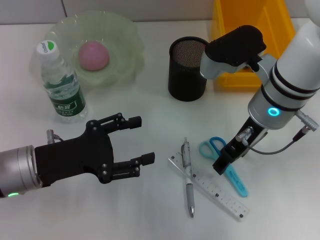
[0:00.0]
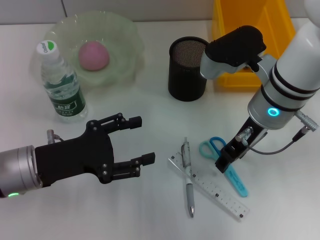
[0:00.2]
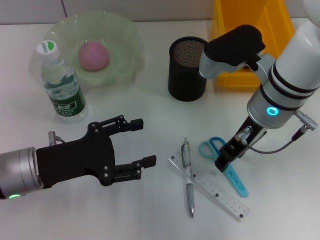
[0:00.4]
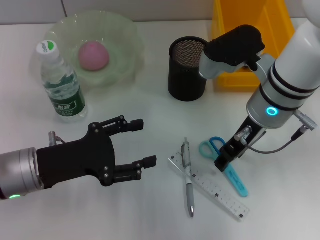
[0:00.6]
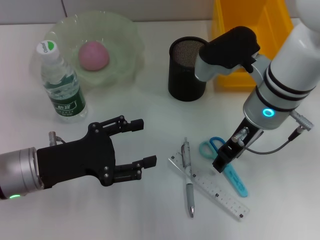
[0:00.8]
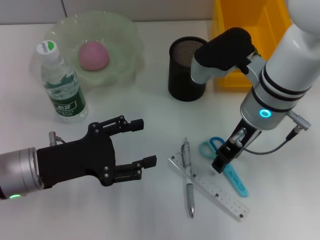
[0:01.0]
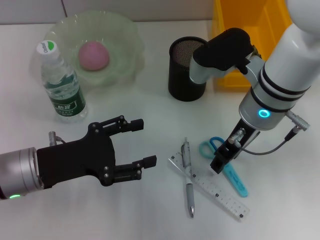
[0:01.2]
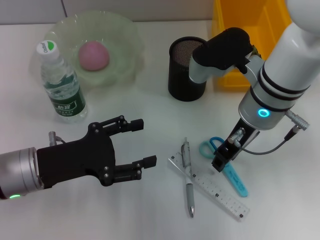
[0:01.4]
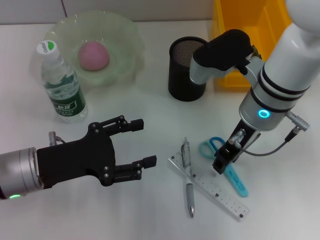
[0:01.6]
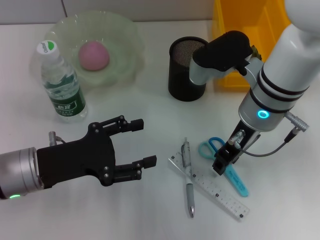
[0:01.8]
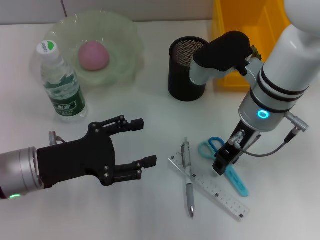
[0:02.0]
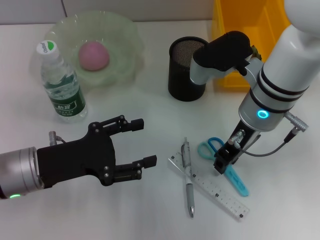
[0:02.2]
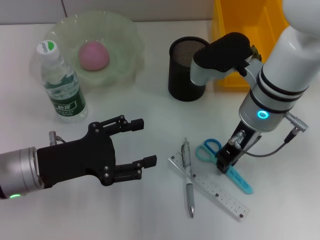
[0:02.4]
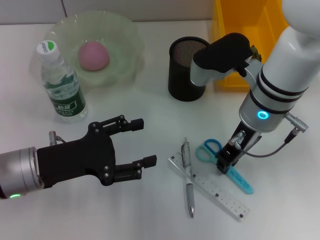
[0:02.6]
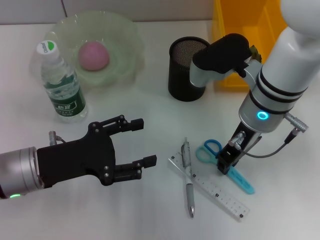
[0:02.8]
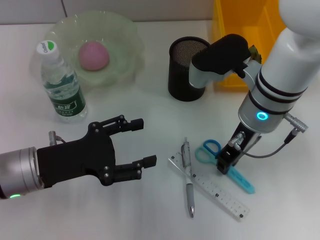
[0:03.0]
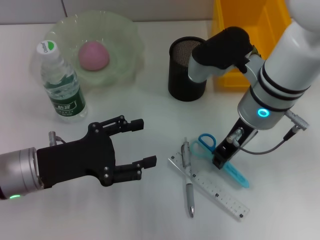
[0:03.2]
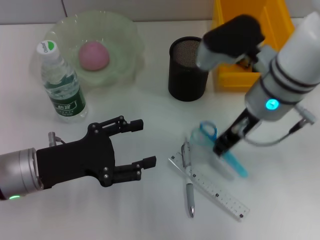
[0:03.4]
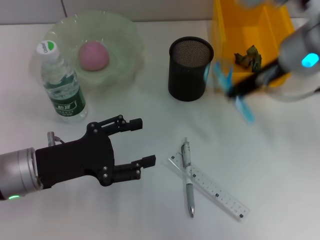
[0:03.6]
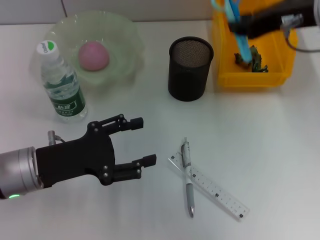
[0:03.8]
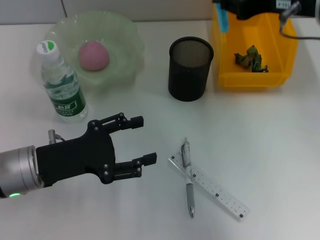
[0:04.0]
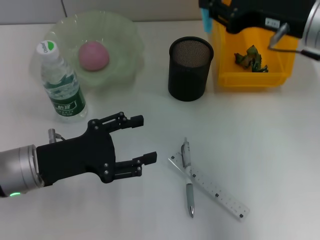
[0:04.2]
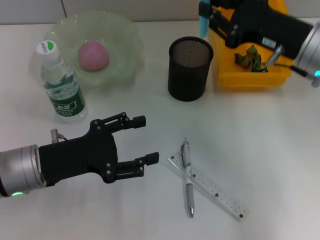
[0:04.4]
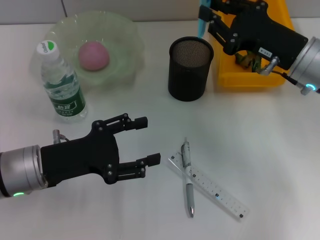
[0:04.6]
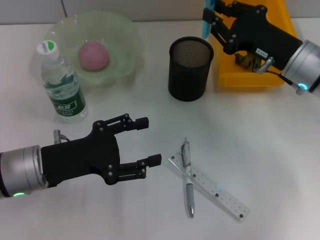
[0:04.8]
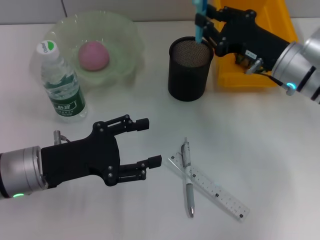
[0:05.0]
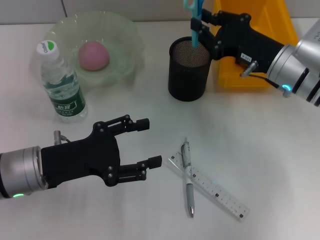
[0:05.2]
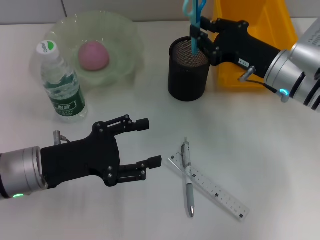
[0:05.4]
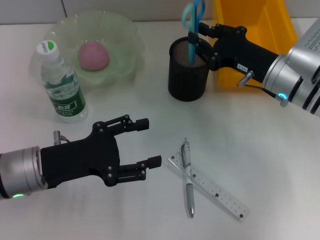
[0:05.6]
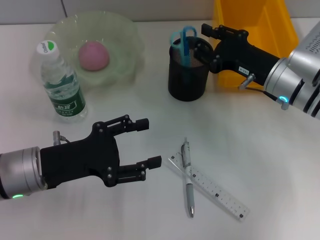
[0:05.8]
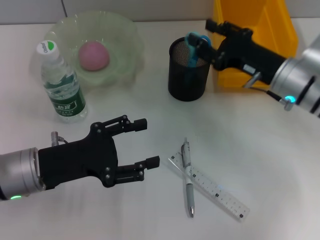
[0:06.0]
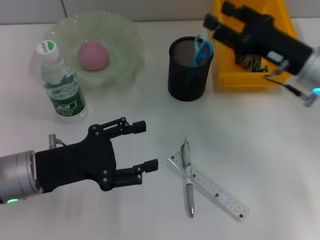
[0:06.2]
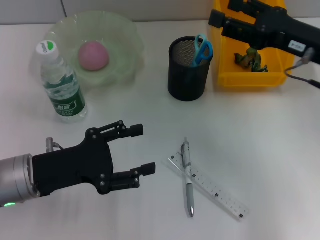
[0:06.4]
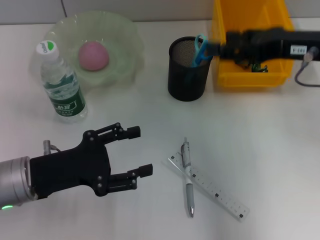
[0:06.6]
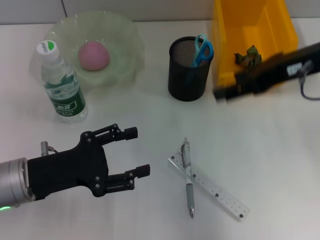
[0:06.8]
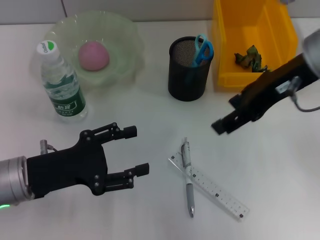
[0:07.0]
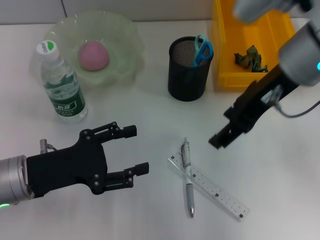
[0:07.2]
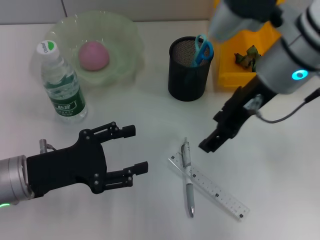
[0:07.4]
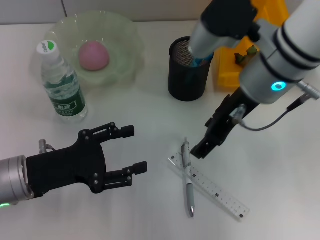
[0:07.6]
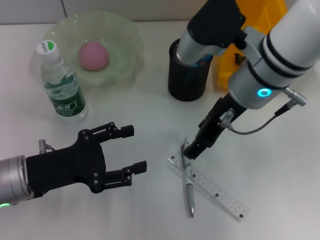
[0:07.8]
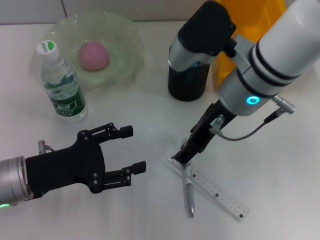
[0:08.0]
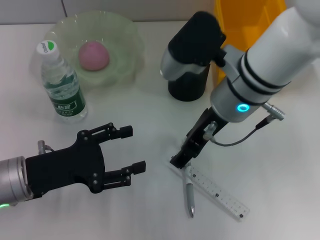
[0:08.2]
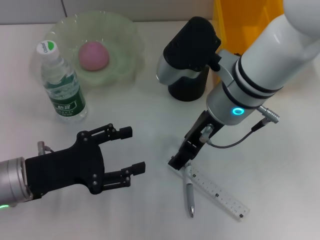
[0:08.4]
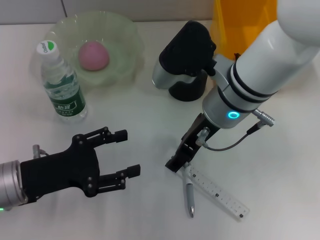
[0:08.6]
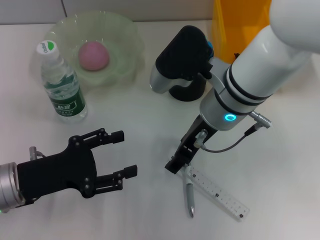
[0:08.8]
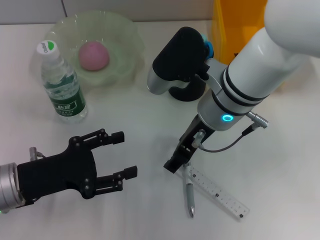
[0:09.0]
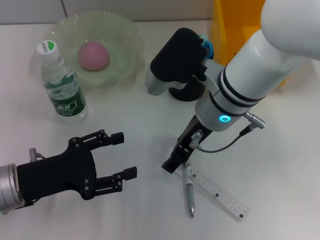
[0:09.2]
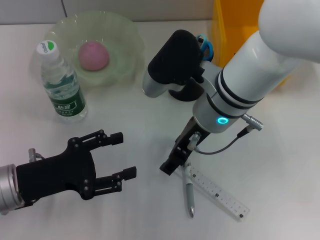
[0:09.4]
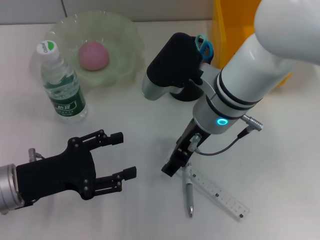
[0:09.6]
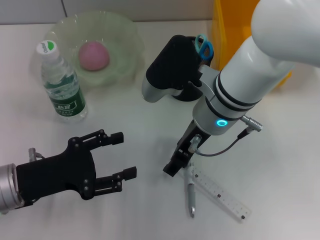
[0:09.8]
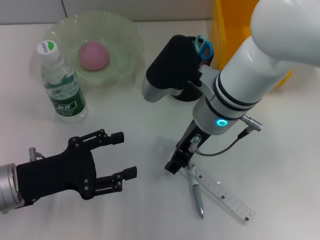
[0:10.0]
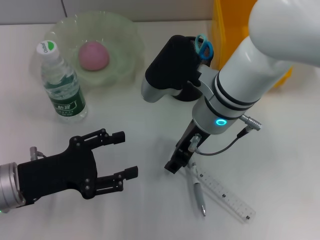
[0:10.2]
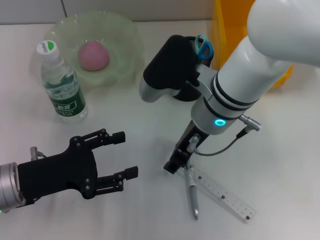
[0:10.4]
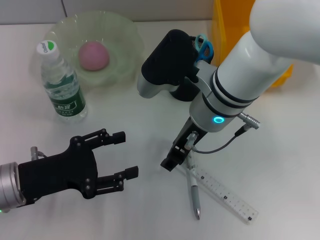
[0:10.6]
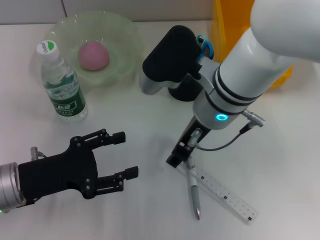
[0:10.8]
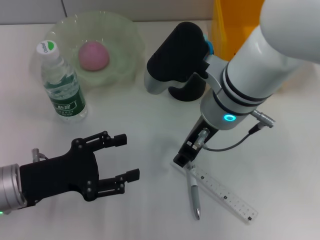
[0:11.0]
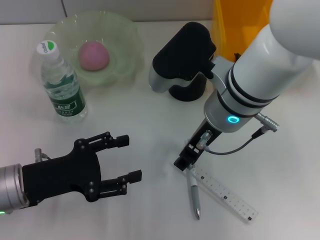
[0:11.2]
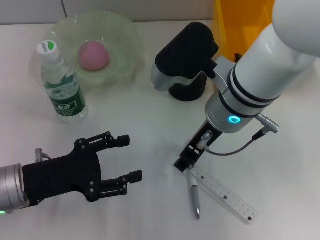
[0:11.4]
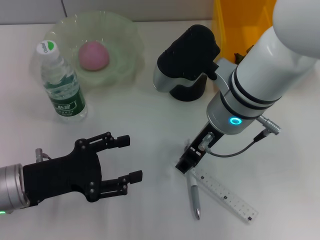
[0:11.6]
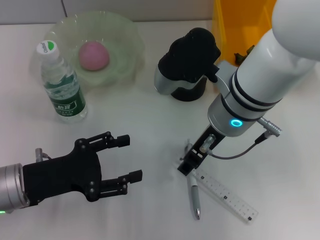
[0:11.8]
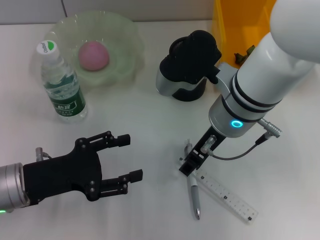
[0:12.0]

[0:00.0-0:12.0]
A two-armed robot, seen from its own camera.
Step, 0:00.0 to 0:02.6: Grab the blue scissors with the right hand.
Step, 0:02.8 to 0:06.4: Place the blue scissors into the pen holder with the right hand.
0:00.0 to 0:01.6: The right gripper closes up.
0:01.6 to 0:03.0: Neither gripper changes place.
0:03.0 to 0:04.4: The right gripper is displaced to the right by roughly 10 cm, and moves some 15 cm upward and comes back.
0:04.4 to 0:06.0: The right gripper travels downward by roughly 5 cm.
0:06.0 to 0:07.6: The right gripper goes some 15 cm upward and to the left, and opens up.
0:07.6 to 0:09.0: The right gripper is displaced downward by some 5 cm.
0:09.0 to 0:10.4: Both grippers stay about where they are.
0:10.4 to 0:12.0: The grippers make only small movements.

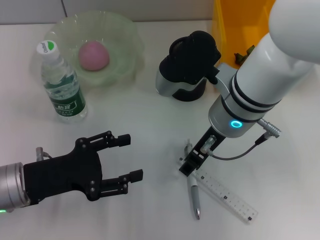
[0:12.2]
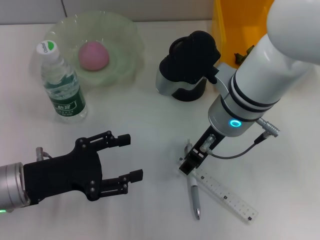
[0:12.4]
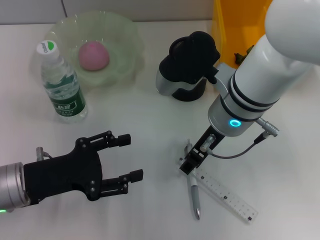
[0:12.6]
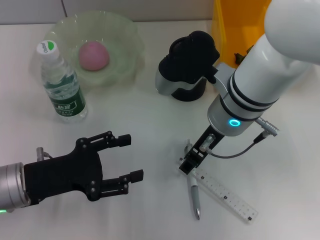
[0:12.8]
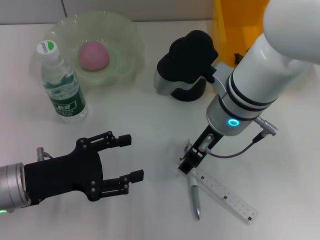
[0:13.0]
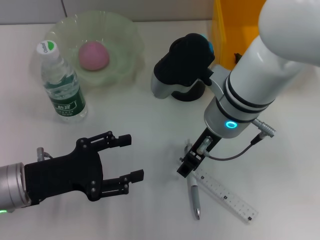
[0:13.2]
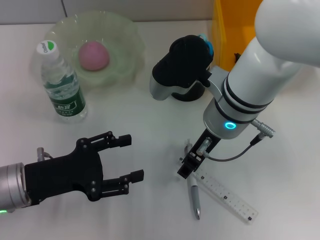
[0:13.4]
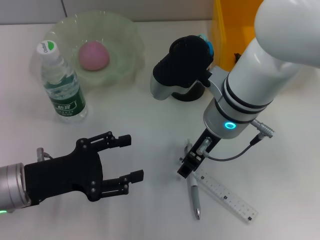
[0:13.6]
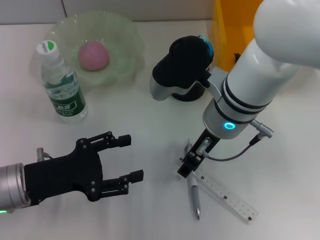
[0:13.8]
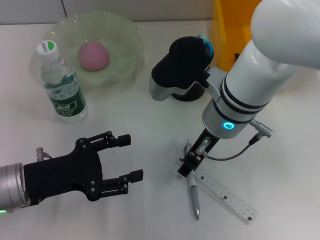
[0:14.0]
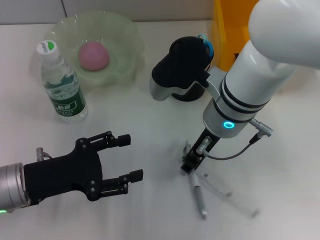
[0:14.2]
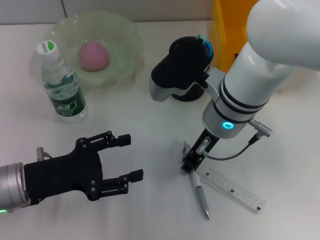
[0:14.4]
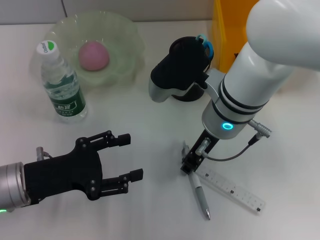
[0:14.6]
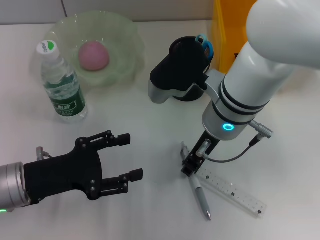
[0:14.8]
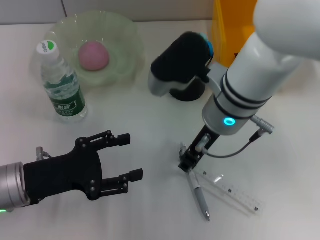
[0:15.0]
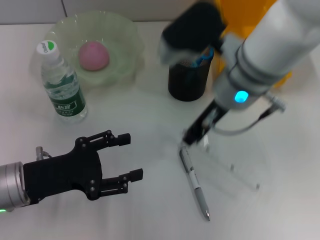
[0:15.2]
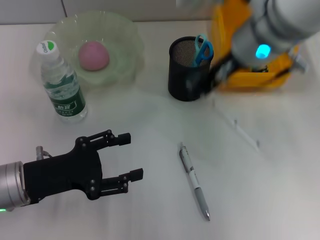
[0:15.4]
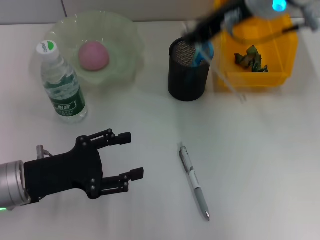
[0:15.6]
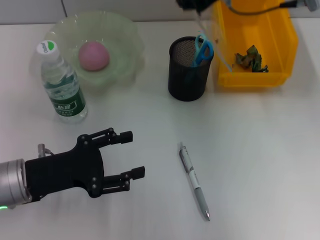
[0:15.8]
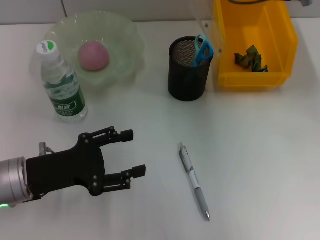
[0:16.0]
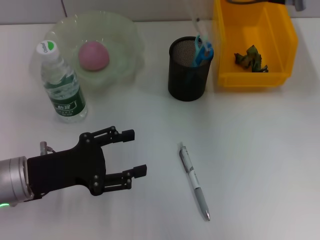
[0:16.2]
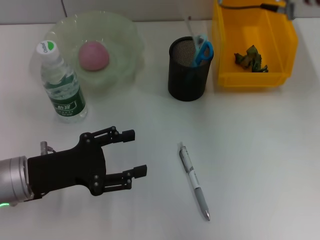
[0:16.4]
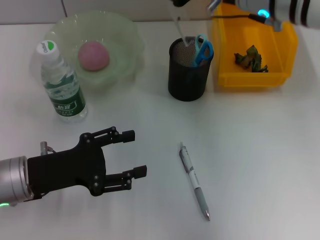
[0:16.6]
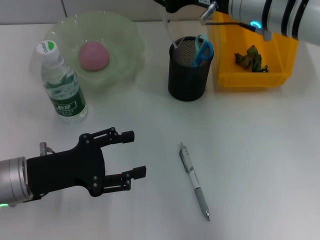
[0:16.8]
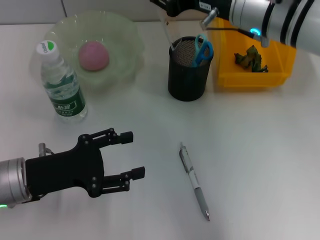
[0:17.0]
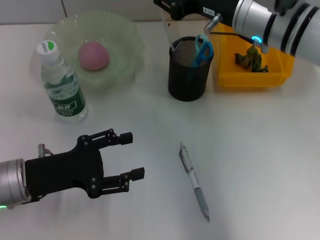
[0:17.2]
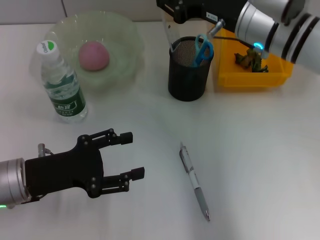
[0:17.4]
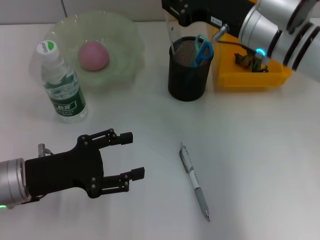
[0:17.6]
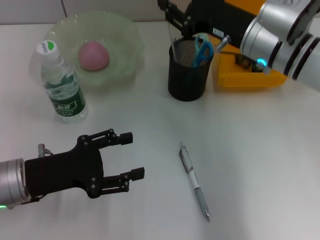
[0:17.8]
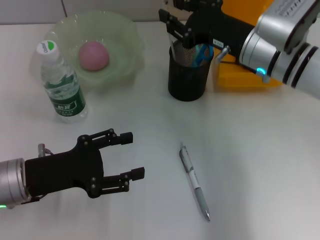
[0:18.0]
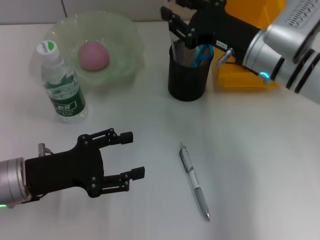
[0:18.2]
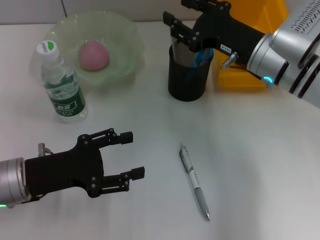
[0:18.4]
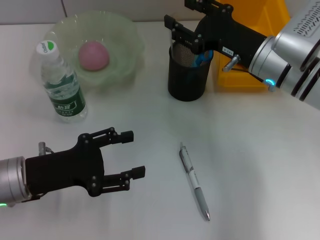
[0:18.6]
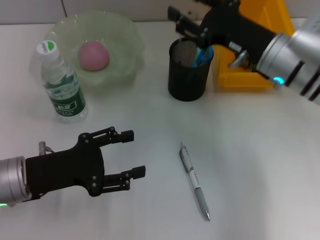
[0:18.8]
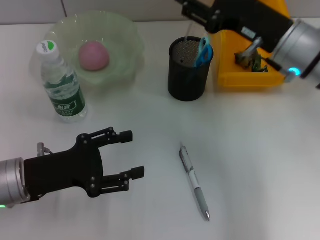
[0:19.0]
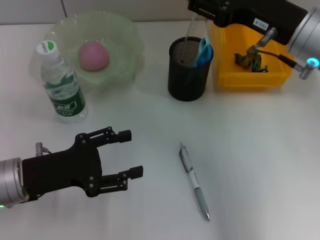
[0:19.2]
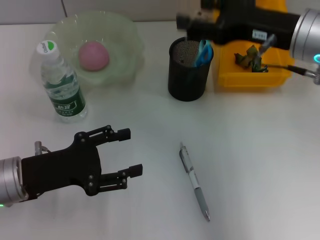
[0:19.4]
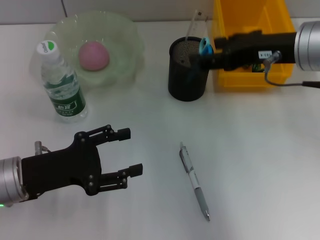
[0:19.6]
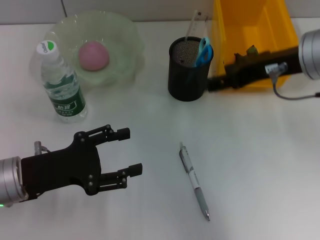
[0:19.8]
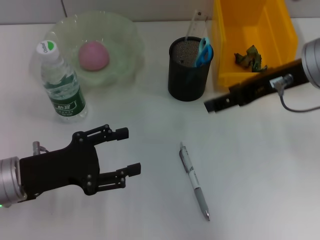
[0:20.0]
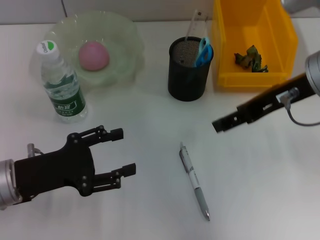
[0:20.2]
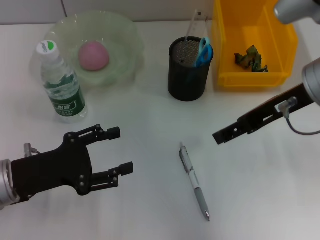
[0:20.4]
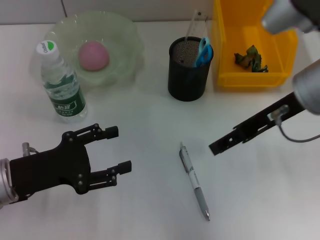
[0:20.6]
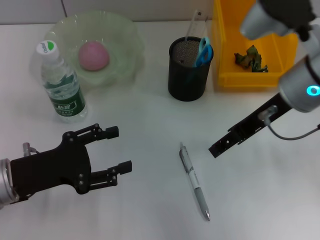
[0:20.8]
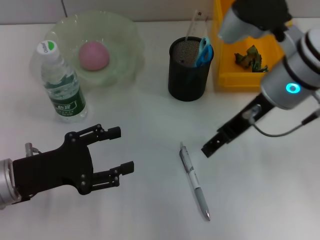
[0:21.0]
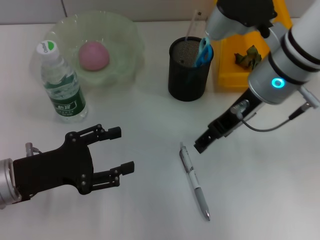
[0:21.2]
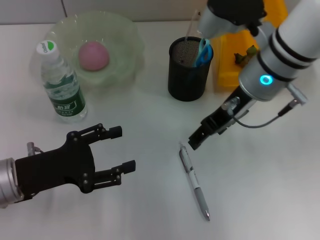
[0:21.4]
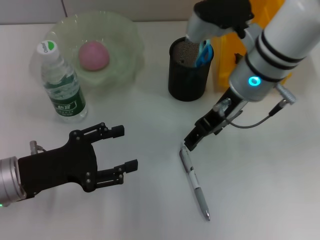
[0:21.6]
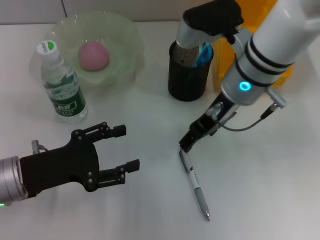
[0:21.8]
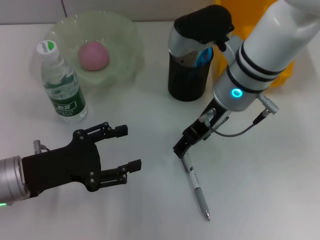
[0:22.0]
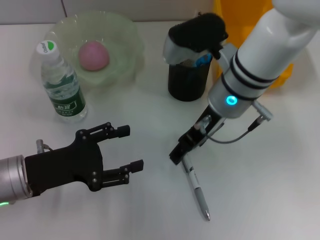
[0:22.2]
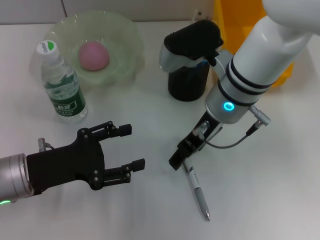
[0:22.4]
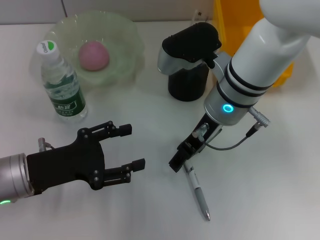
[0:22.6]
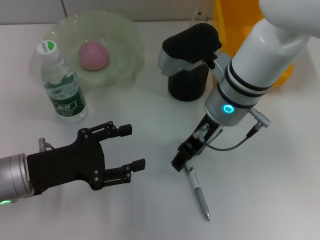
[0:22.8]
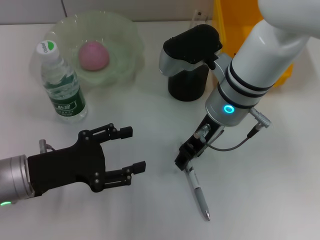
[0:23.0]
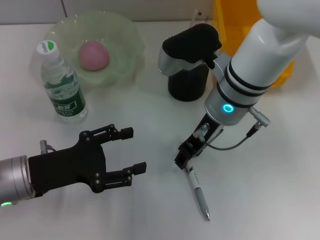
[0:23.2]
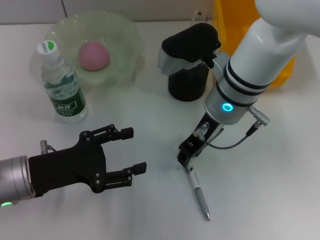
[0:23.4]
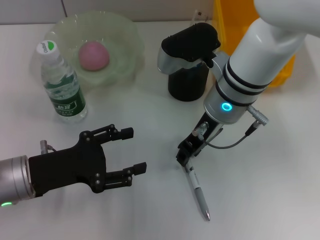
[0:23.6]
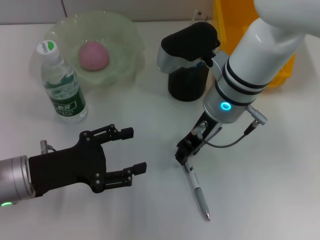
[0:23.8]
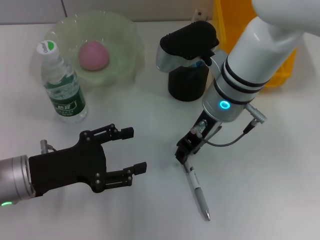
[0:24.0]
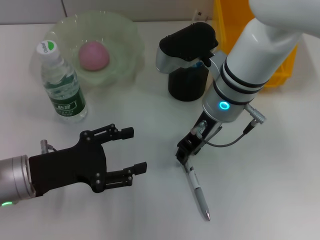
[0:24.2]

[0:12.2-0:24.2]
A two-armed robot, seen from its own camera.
Step, 0:12.2 to 0:14.8: Grab the ruler with the right hand.
Step, 0:15.0 to 0:19.2: Place the ruler into the pen holder with the right hand.
0:12.2 to 0:13.8: Both grippers stay about where they are.
0:13.8 to 0:15.2: The right gripper goes some 5 cm upward.
0:16.6 to 0:18.2: The right gripper travels downward by about 10 cm.
0:18.2 to 0:19.8: The right gripper travels upward by roughly 10 cm, and opens its fingers.
0:19.8 to 0:21.2: The right gripper goes approximately 5 cm to the left.
0:21.2 to 0:22.6: The right gripper is displaced to the left by roughly 5 cm.
0:22.6 to 0:24.2: The right gripper closes up.
